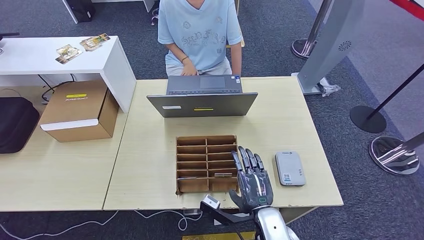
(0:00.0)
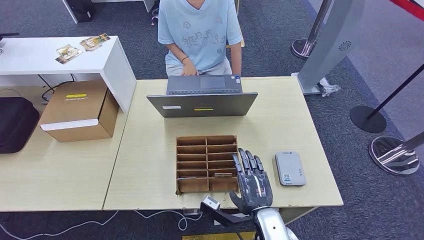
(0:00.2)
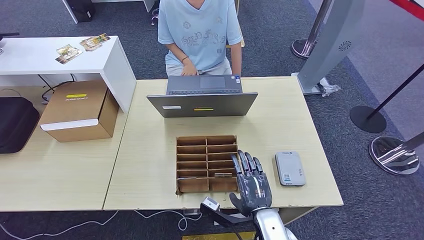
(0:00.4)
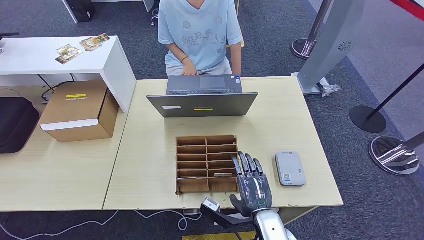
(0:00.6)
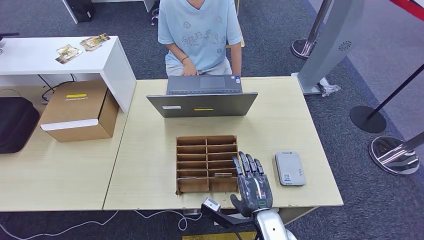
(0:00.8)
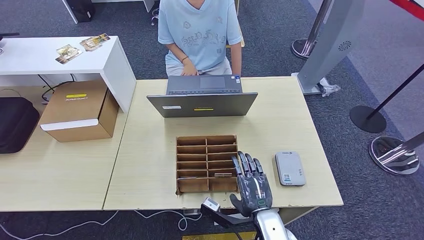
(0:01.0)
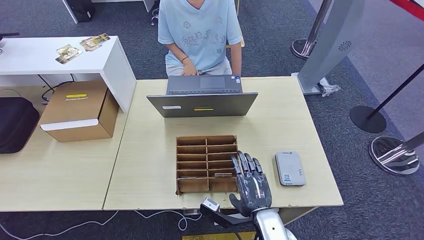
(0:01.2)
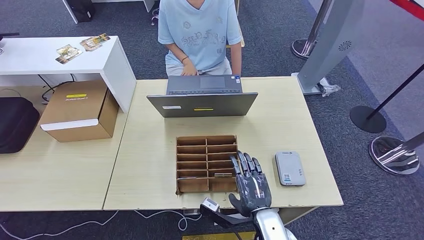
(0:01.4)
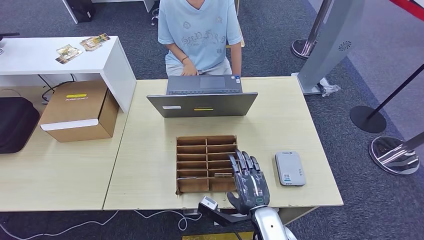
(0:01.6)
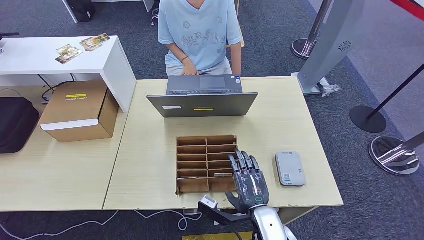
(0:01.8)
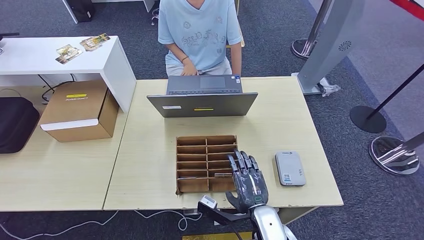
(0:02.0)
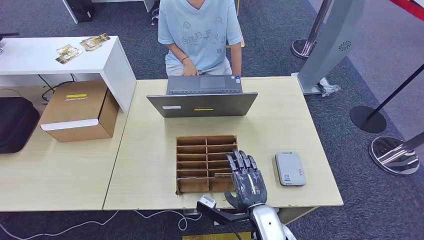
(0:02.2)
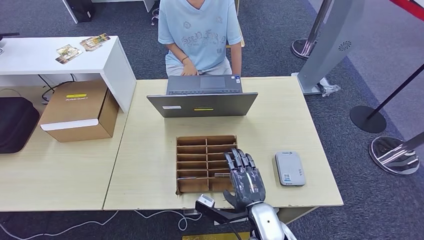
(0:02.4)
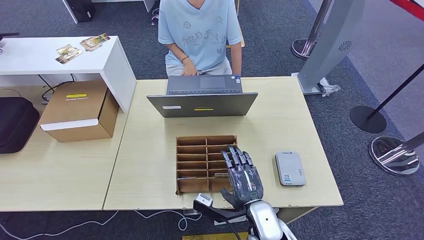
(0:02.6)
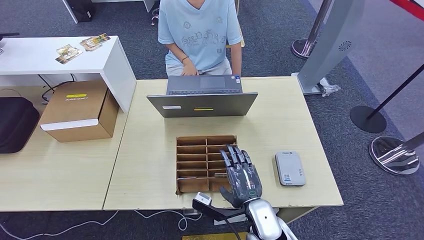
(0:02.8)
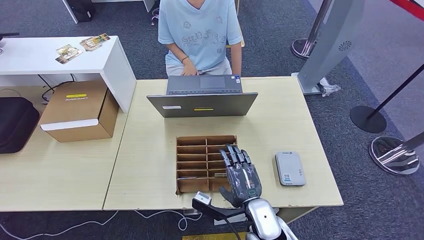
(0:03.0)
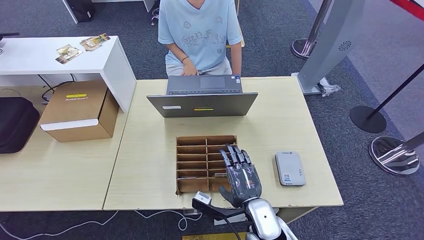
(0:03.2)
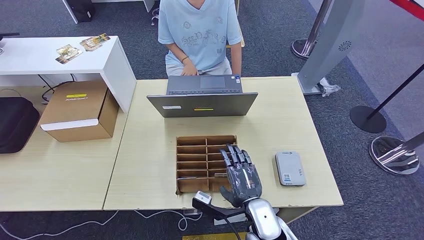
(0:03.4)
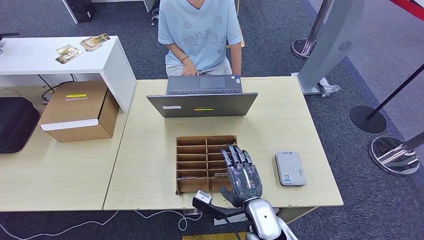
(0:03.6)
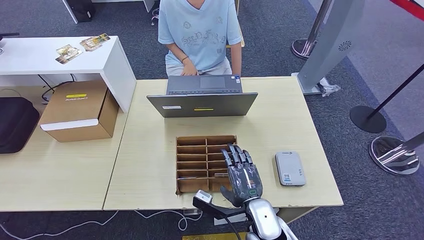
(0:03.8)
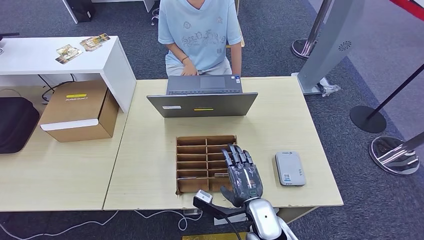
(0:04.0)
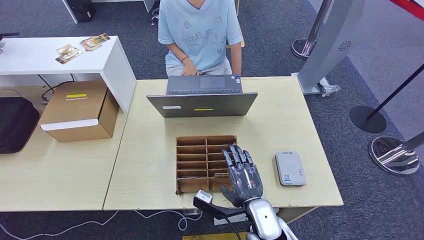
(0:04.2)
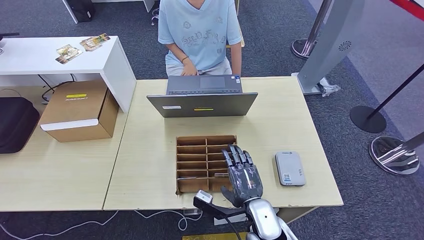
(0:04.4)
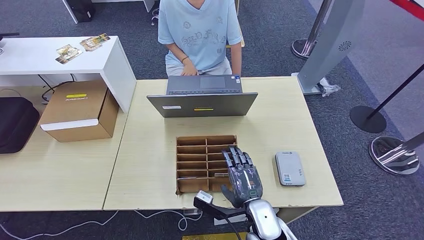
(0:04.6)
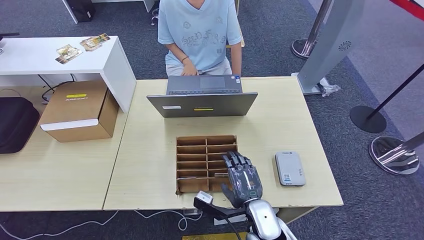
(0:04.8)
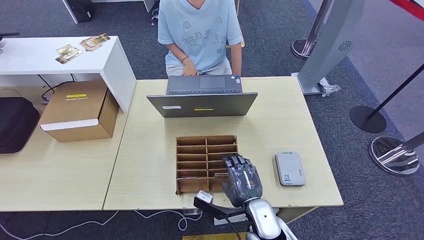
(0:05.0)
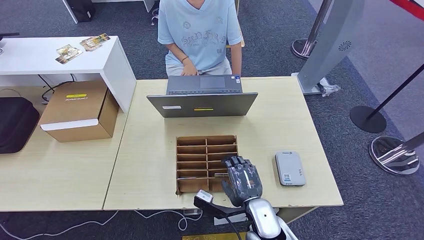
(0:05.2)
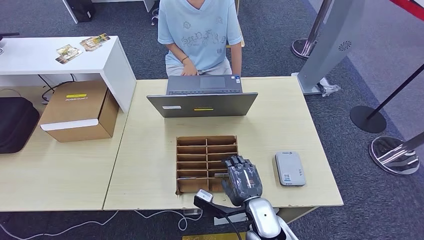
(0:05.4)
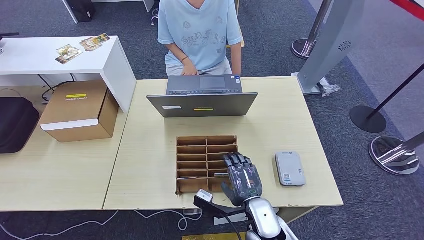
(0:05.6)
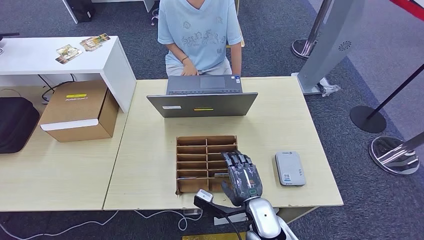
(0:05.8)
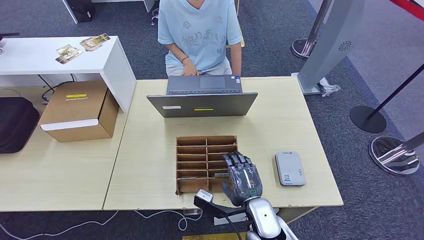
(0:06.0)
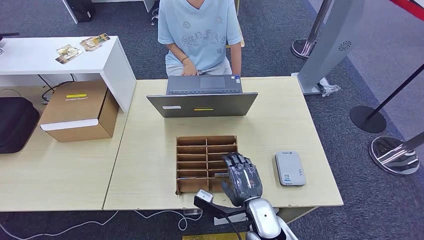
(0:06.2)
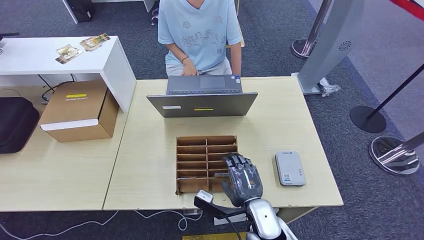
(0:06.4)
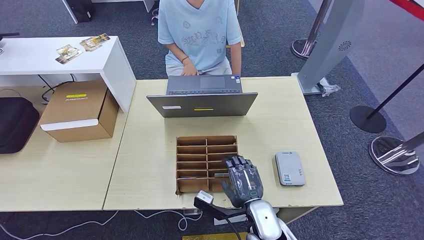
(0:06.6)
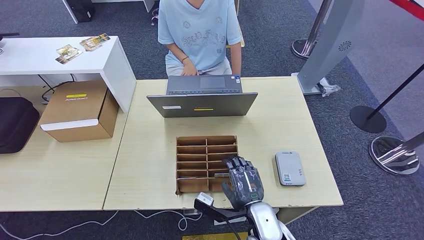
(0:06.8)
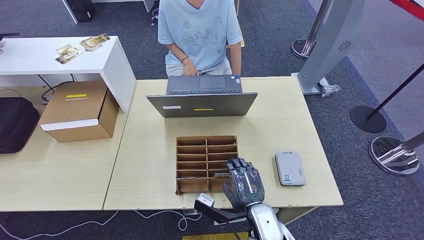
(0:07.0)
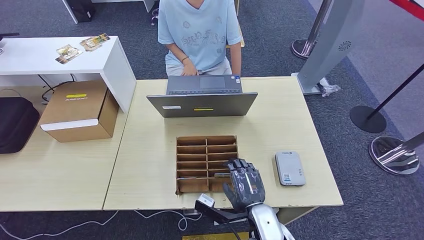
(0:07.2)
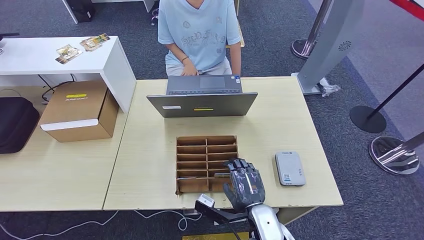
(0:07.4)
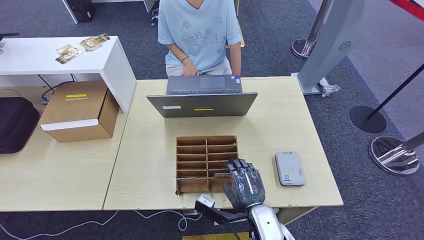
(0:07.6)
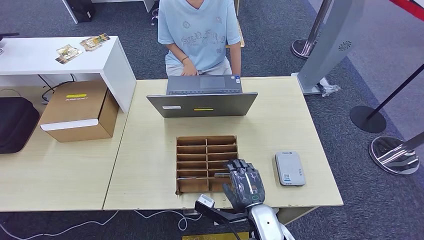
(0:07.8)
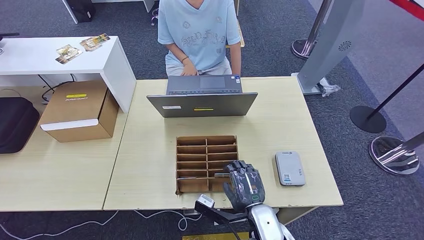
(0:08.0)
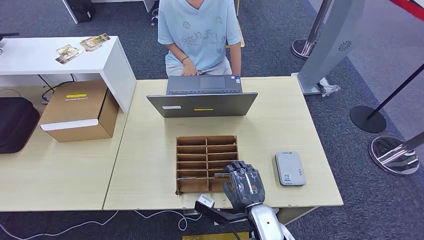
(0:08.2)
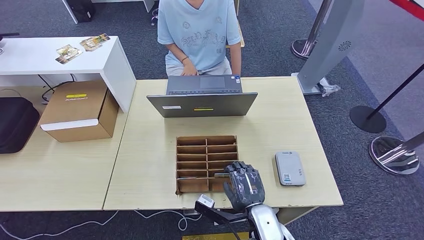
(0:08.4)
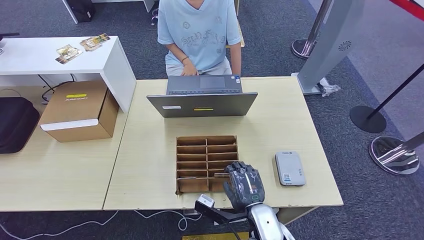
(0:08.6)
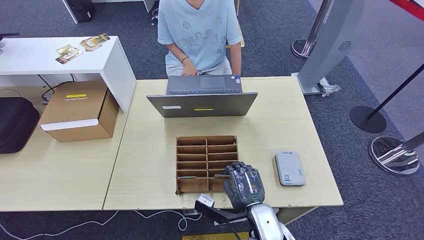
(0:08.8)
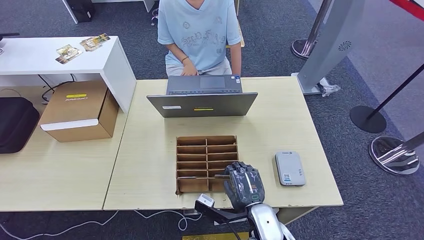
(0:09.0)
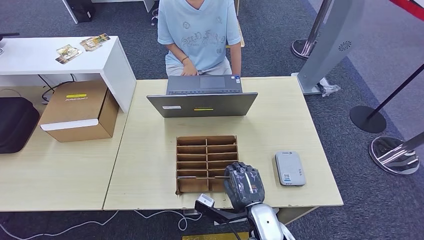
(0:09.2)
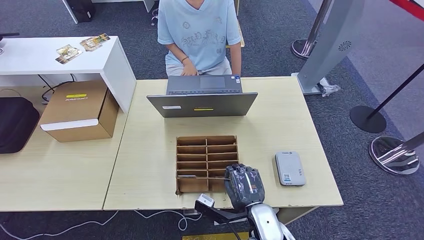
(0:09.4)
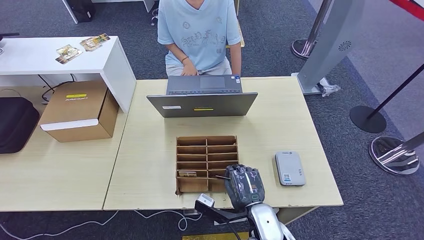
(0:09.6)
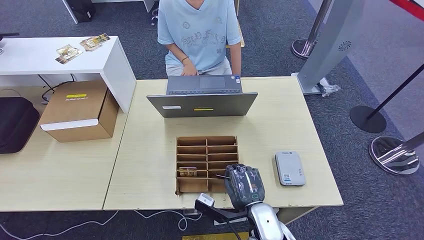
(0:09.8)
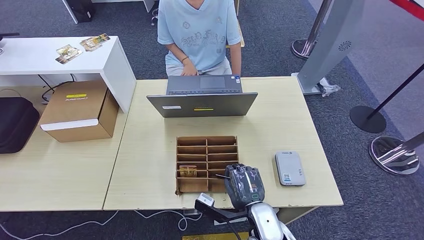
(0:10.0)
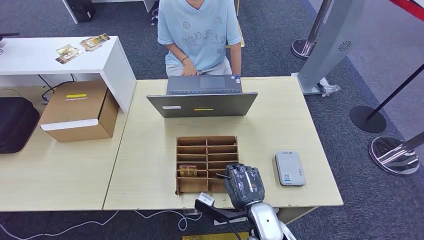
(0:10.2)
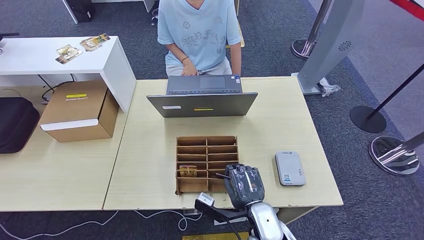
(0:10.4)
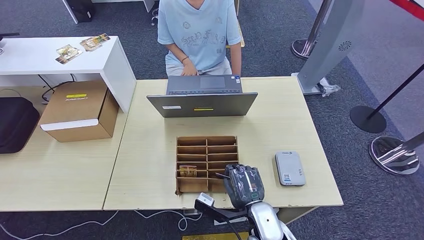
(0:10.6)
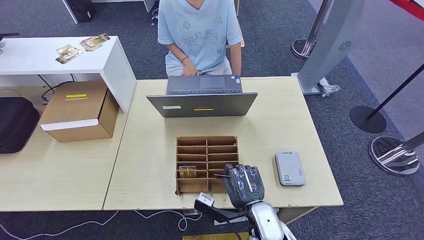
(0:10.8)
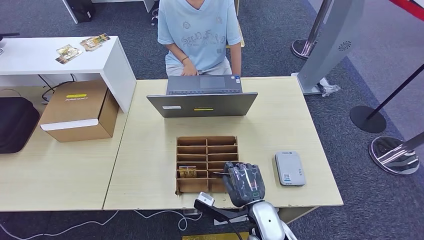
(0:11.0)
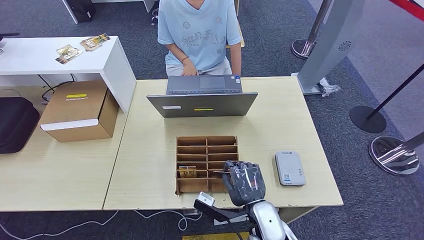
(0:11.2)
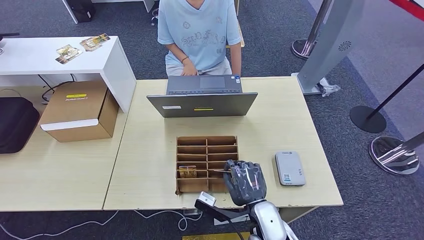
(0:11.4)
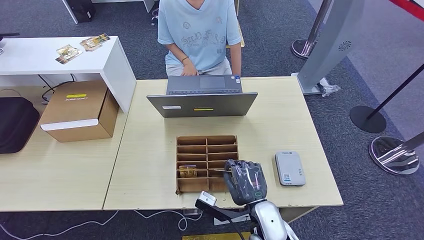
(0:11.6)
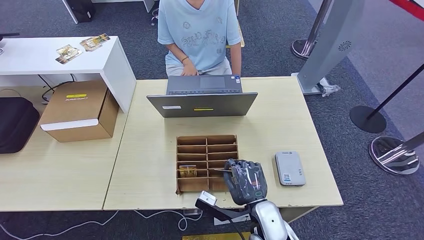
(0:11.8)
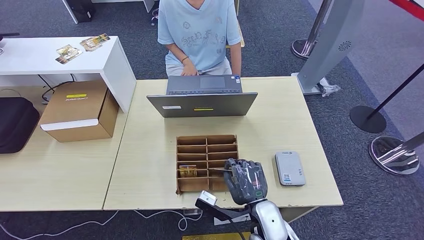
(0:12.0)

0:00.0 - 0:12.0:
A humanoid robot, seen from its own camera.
0:00.0 - 0:01.6: The two hands keep their place.
0:01.6 - 0:03.0: The hands move only a little.
0:03.0 - 0:06.0: Both hands stay put.
0:06.0 - 0:07.6: There are only small adjustments of the hands.
0:07.6 - 0:10.4: Neither hand changes place.
0:10.4 - 0:12.0: The hands make only small movements.

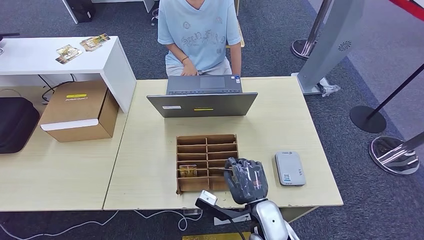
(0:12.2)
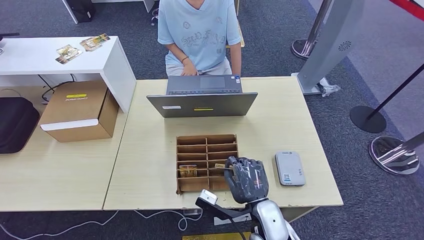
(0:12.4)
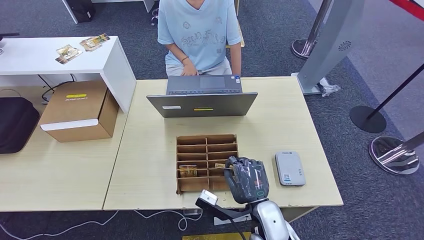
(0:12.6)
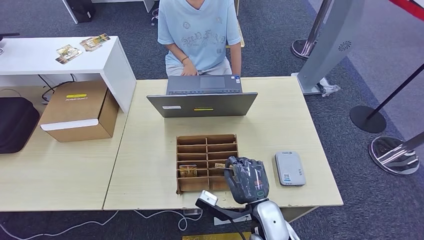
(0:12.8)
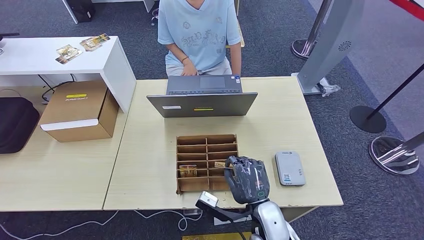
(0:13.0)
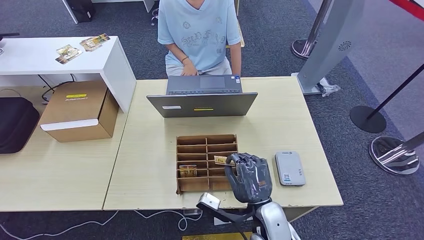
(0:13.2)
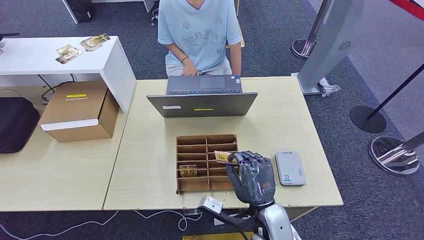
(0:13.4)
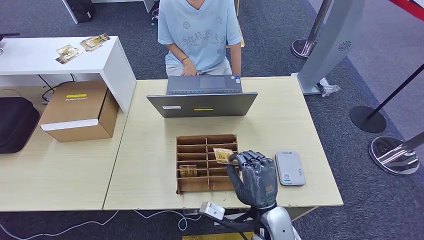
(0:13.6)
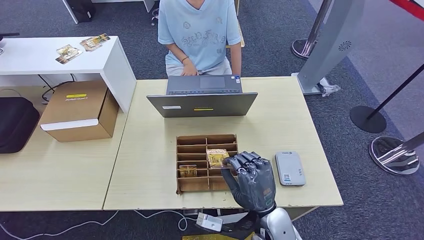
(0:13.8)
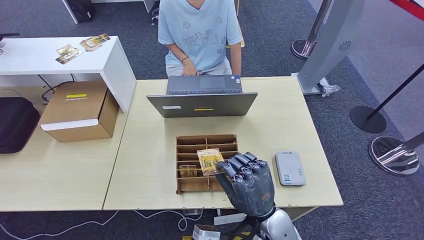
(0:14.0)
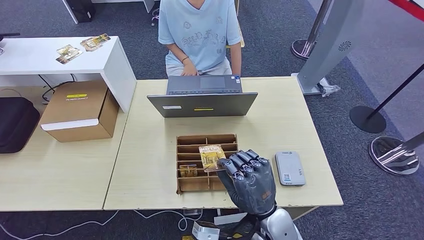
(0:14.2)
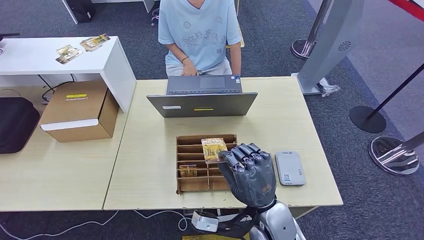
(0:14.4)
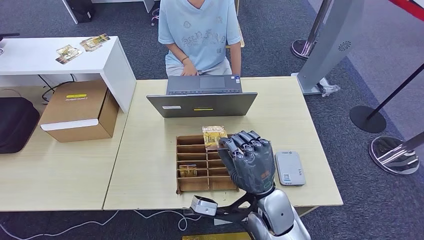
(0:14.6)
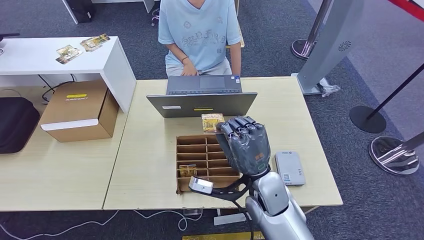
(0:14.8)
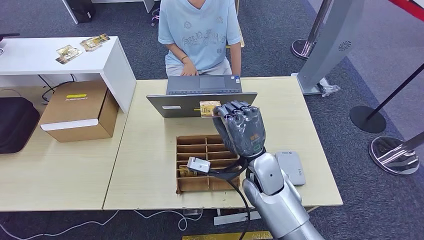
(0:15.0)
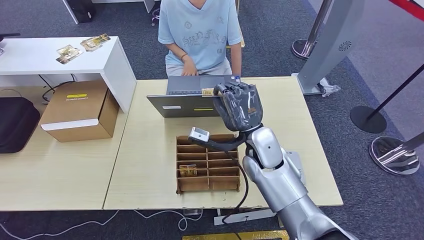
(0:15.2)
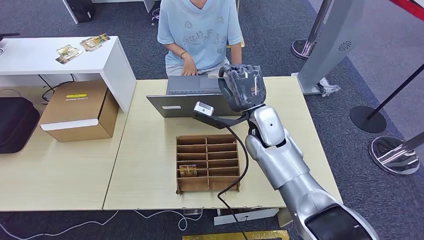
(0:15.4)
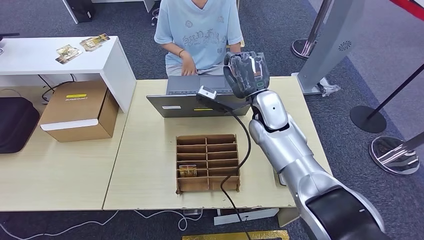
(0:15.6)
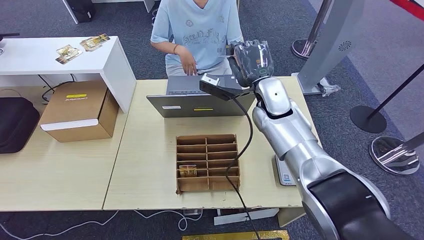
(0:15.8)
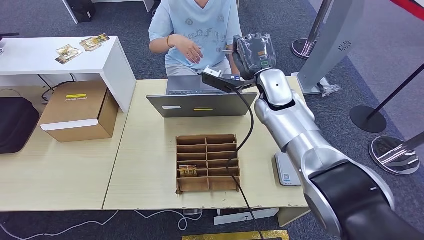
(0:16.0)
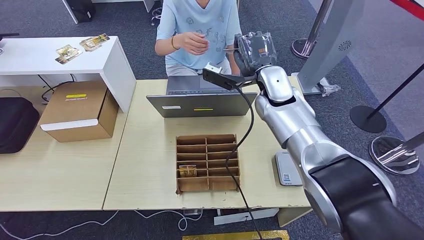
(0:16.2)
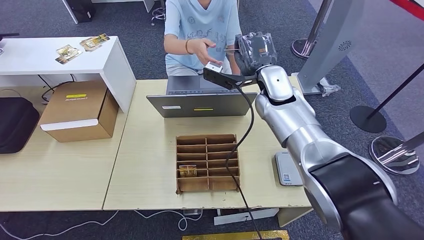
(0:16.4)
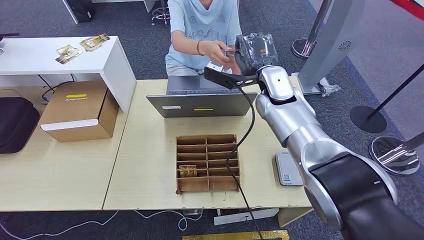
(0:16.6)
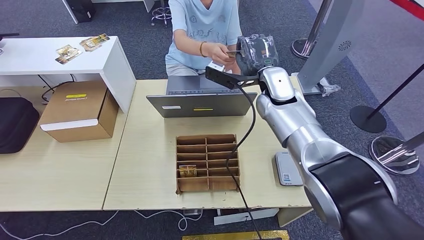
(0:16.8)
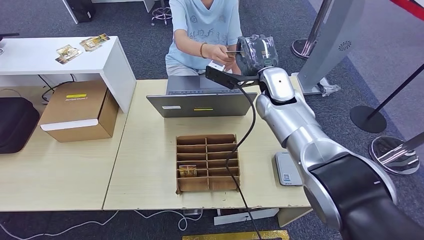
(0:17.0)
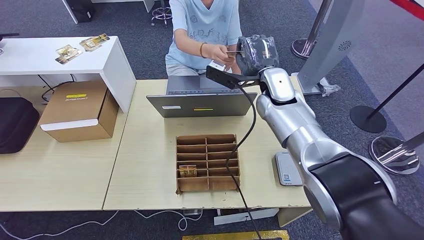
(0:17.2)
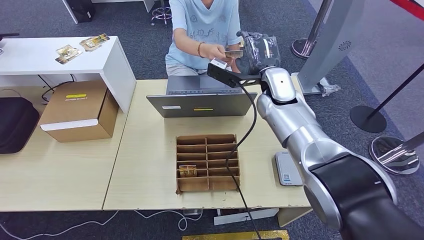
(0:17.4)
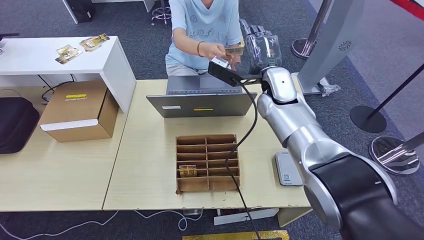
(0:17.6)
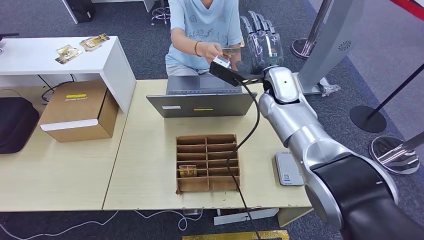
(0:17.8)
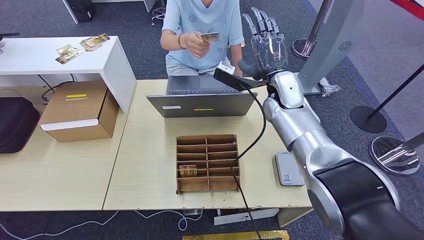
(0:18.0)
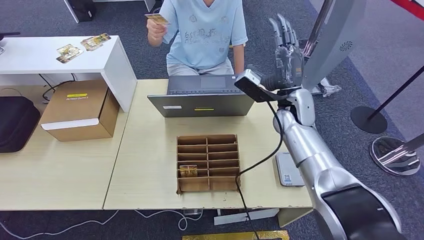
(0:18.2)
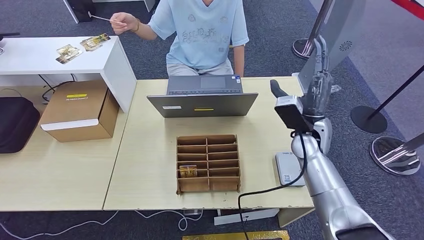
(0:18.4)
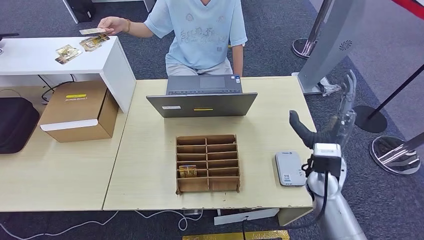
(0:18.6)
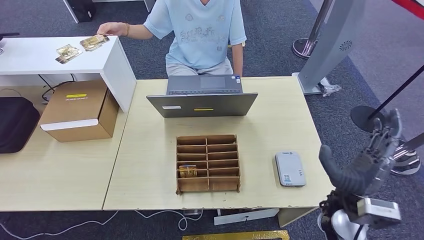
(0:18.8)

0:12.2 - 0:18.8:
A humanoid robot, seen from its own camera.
Step, 0:12.6 - 0:18.8: Hand the room key to the person.
0:13.8 - 0:15.4: The right hand goes approximately 25 cm forward and upward.
0:15.4 - 0:17.2: The right hand is displaced forward and upward by about 10 cm.
0:17.2 - 0:18.8: The right hand heads backward, downward and to the right, covering roughly 30 cm.
